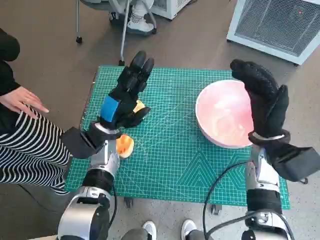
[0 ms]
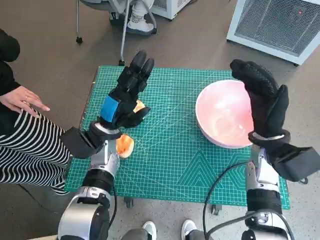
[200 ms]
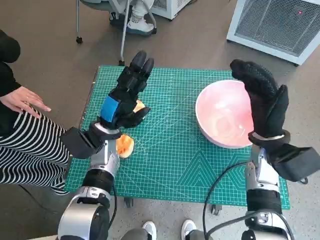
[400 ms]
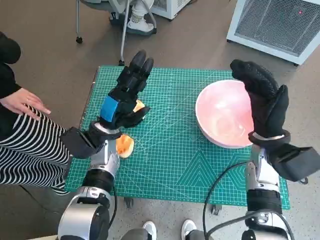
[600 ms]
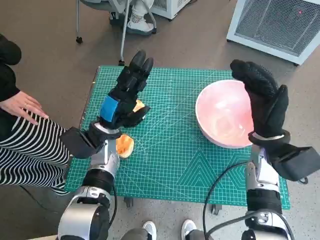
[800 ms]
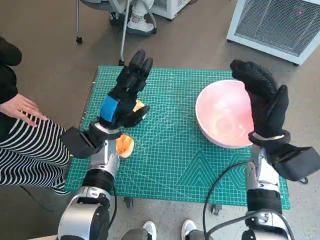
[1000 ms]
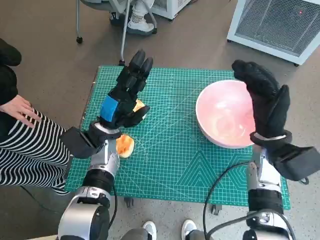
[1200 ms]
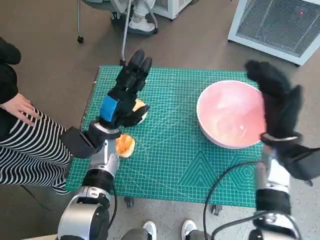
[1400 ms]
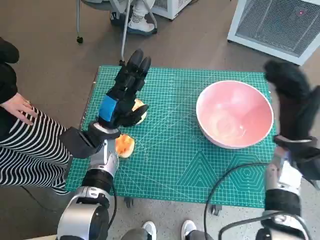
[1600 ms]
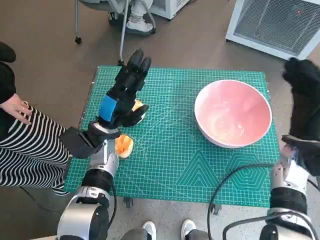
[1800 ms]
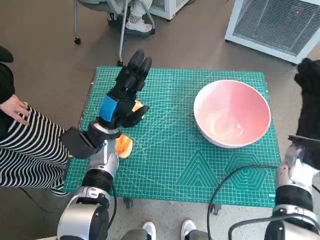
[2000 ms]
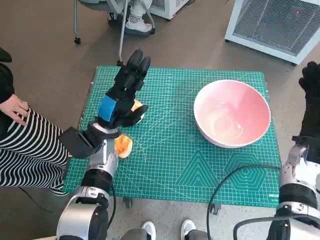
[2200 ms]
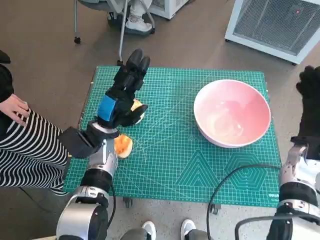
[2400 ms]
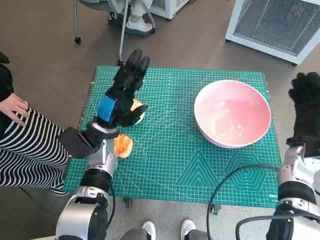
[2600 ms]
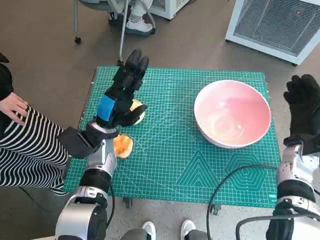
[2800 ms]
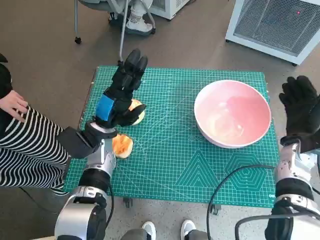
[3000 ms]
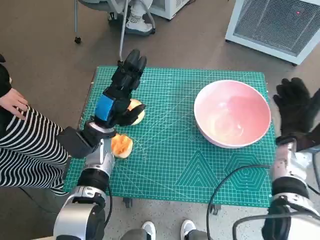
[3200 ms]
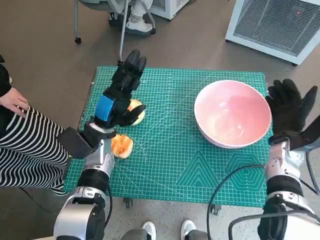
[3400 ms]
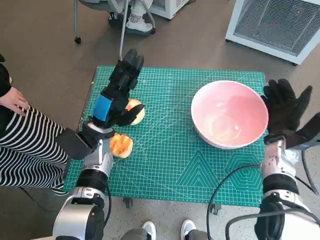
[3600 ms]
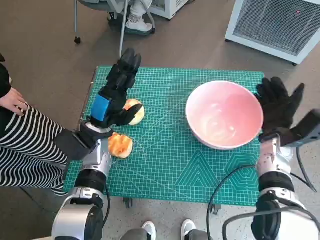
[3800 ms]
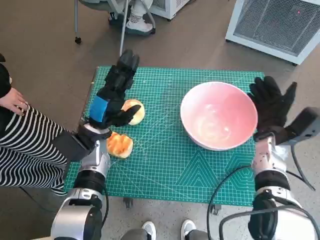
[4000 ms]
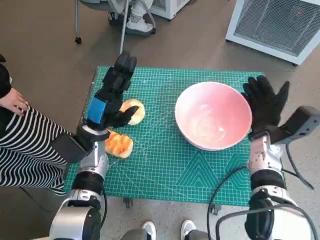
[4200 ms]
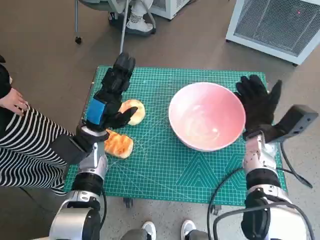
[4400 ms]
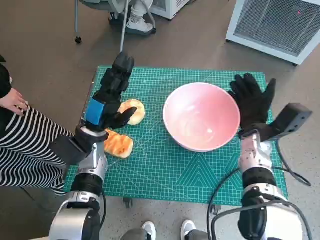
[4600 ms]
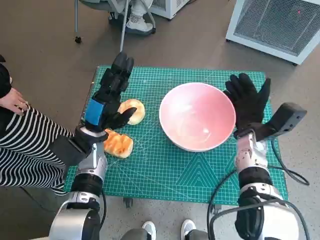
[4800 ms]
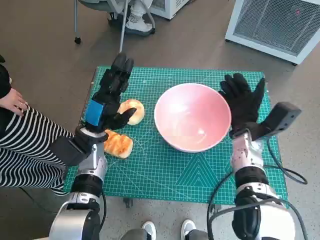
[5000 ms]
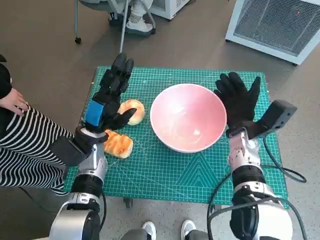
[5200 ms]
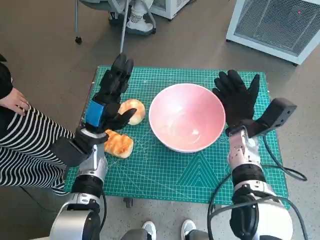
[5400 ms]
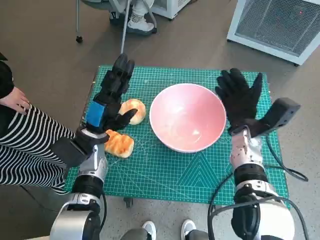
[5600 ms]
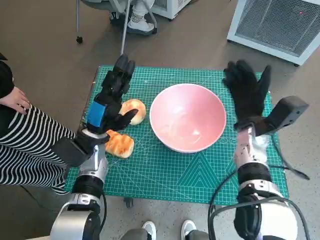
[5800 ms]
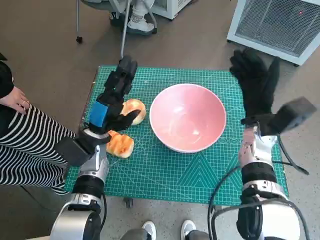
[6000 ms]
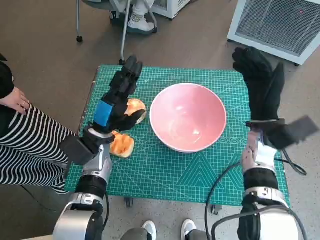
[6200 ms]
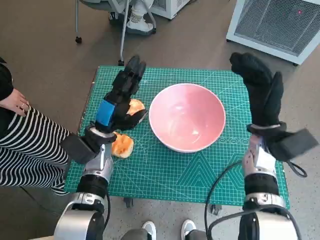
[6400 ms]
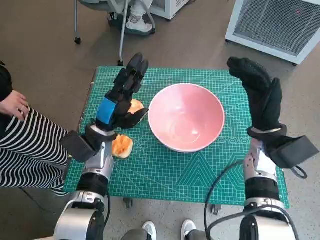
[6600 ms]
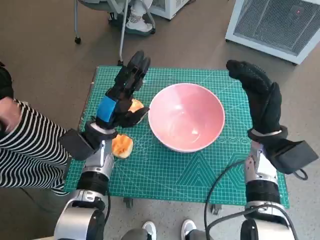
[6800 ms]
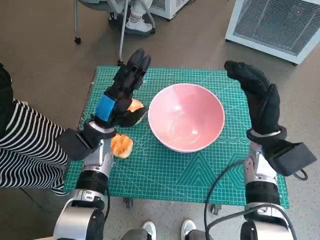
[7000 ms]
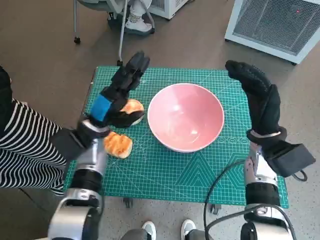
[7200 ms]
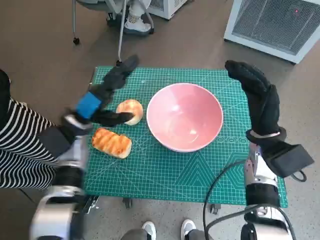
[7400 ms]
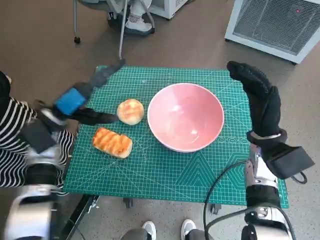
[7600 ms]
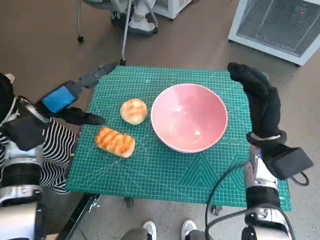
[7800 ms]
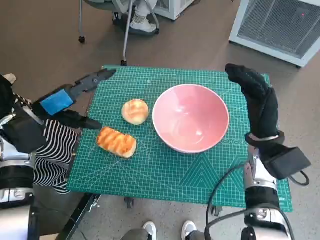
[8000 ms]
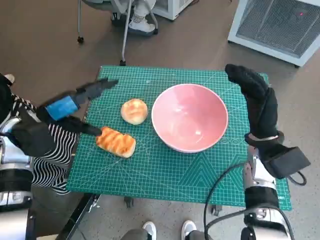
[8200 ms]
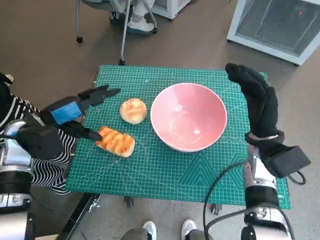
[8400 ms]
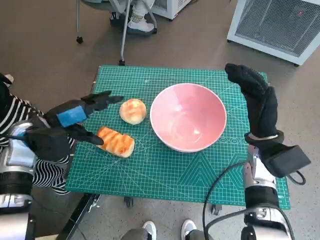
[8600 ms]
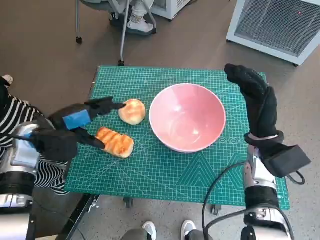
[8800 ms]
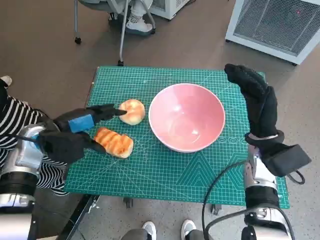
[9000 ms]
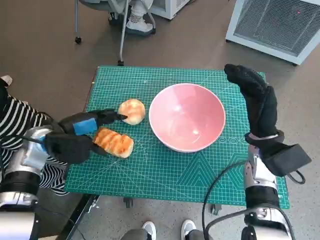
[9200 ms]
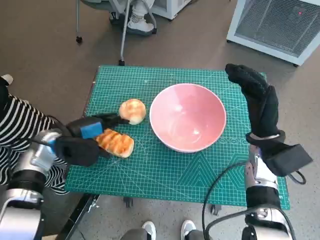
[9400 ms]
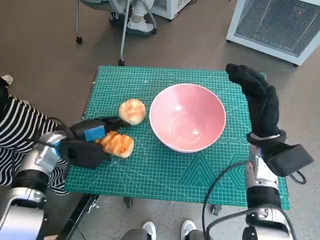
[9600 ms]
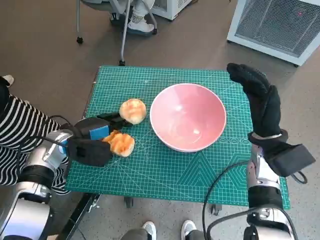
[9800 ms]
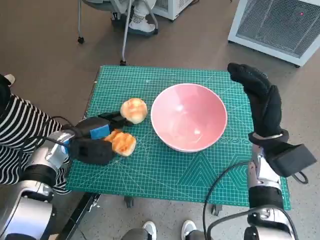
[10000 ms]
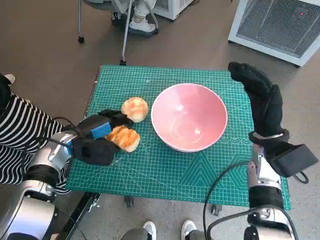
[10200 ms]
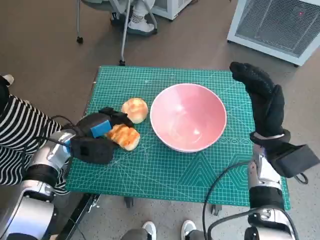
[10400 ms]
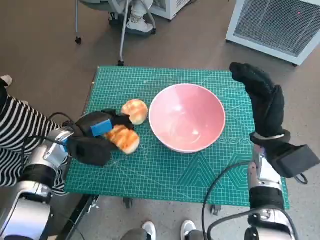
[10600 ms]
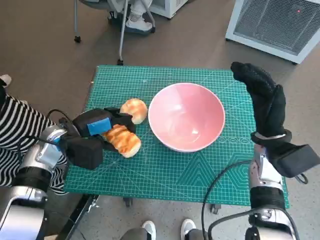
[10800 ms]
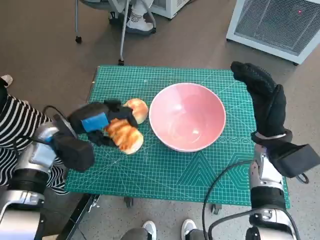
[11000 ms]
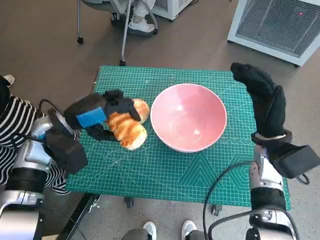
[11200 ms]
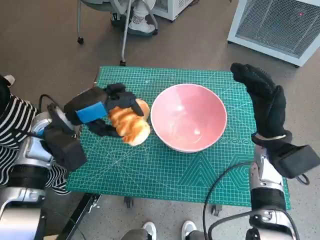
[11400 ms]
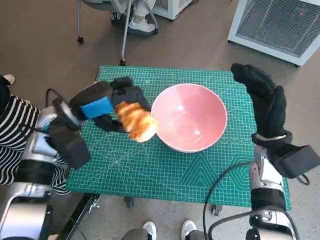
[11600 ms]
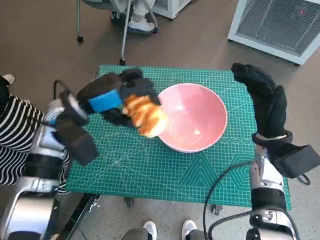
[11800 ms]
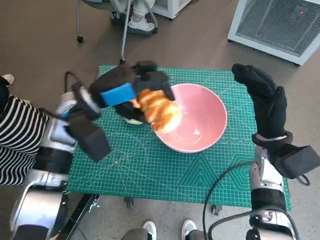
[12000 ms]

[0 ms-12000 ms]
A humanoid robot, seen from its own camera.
Task of the whole recording: Push the bowl into the center of the table and put the bread into the bowl.
Step, 0 ms to 5600 ms: Move the pink bowl to the center of table with right hand.
Step, 5800 ms to 9800 ms: Grasp the long bread with left hand.
3000 ms to 4400 ms: The right hand shifts about 5 cm to the left.
6000 ms to 7600 ms: The left hand moves to the left and upward, about 10 cm.
9000 ms to 10400 ms: The left hand is displaced downward by approximately 5 cm.
10400 ms to 12000 ms: The left hand is displaced upward and to the right by approximately 15 cm.

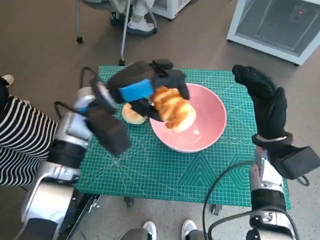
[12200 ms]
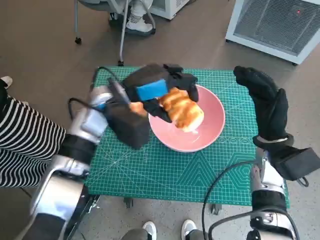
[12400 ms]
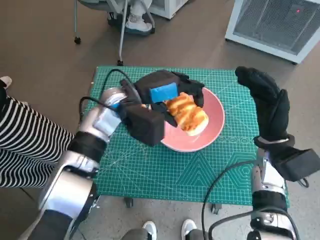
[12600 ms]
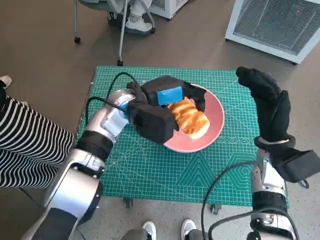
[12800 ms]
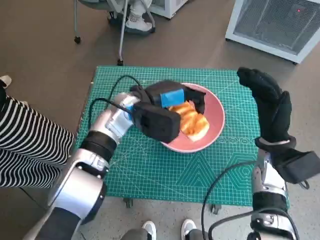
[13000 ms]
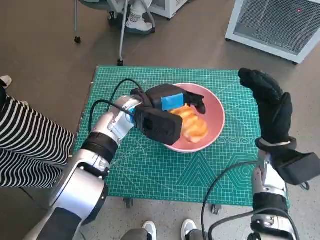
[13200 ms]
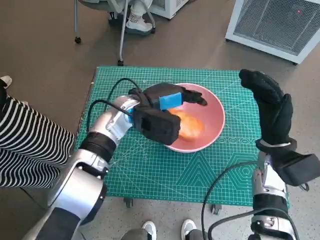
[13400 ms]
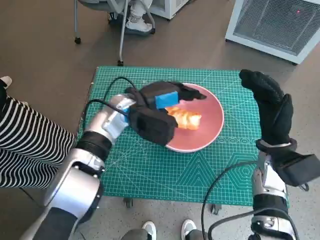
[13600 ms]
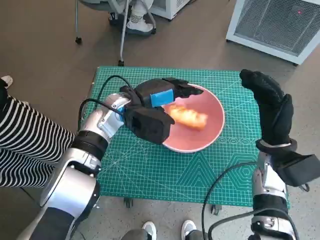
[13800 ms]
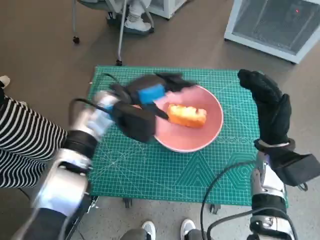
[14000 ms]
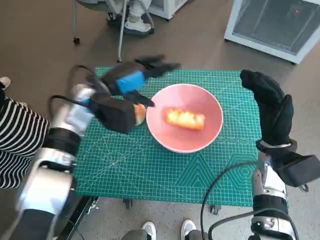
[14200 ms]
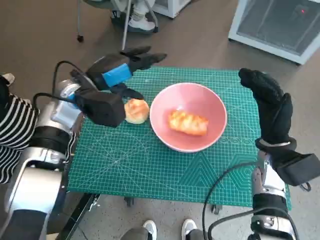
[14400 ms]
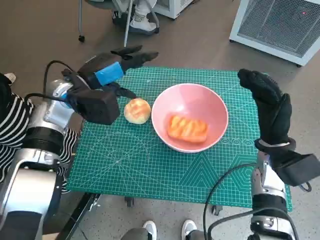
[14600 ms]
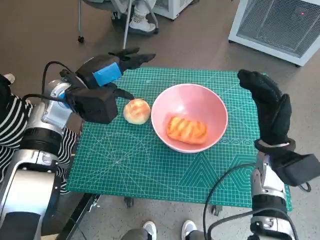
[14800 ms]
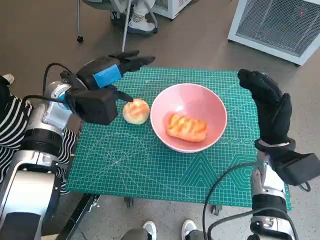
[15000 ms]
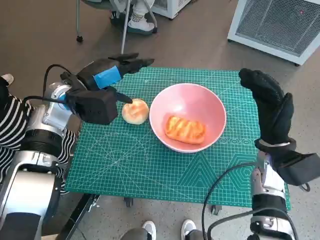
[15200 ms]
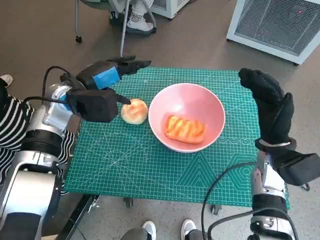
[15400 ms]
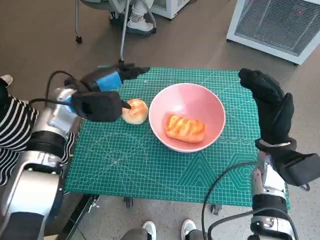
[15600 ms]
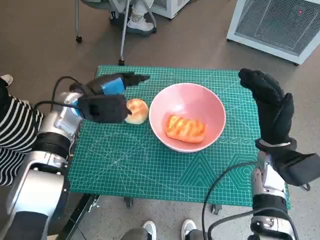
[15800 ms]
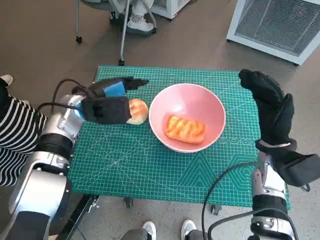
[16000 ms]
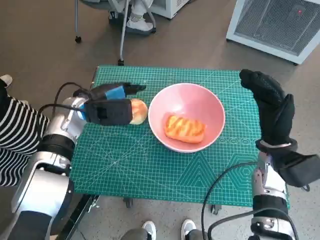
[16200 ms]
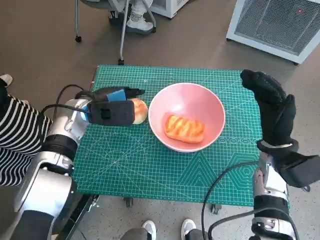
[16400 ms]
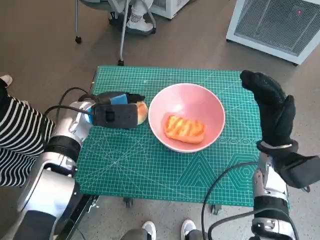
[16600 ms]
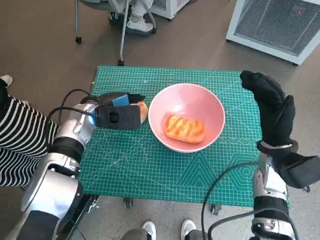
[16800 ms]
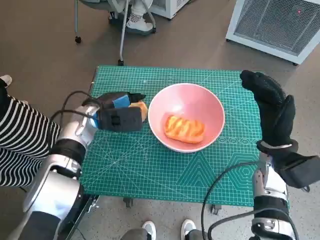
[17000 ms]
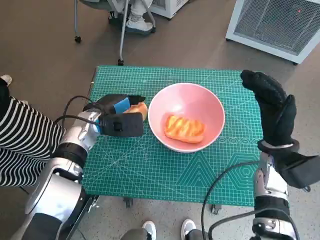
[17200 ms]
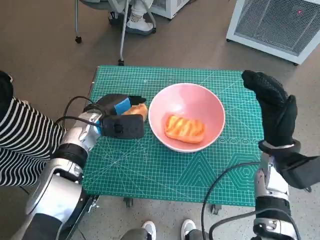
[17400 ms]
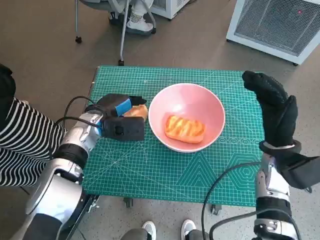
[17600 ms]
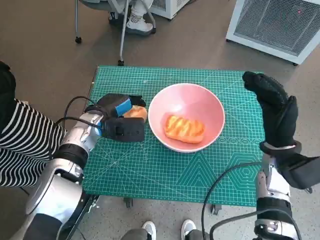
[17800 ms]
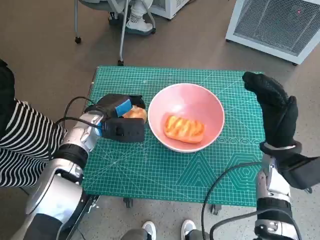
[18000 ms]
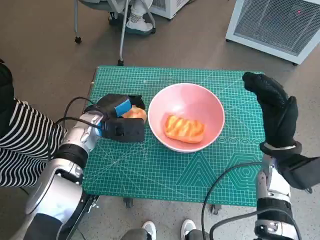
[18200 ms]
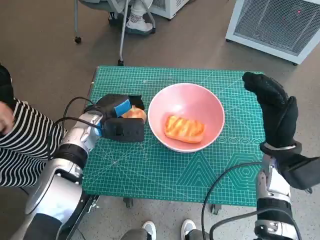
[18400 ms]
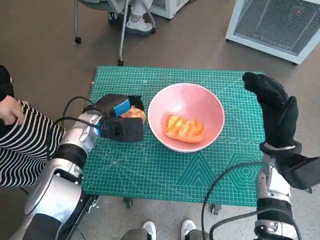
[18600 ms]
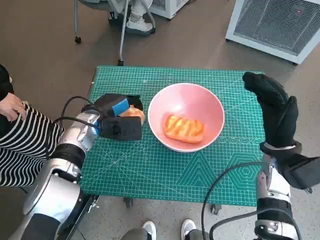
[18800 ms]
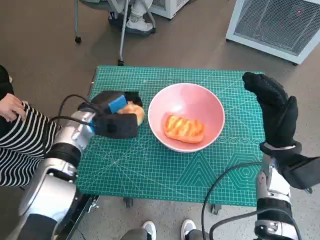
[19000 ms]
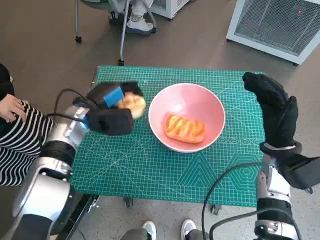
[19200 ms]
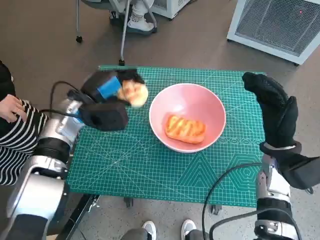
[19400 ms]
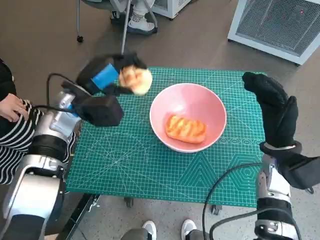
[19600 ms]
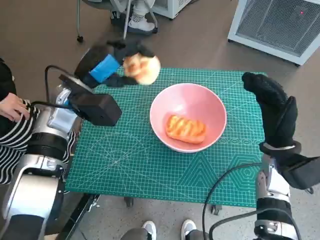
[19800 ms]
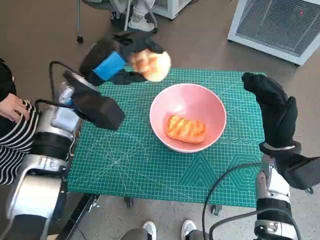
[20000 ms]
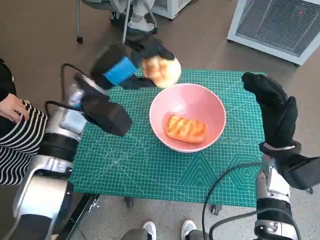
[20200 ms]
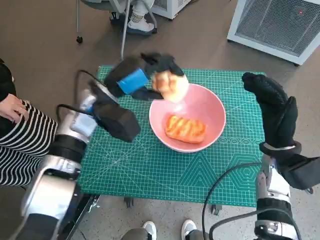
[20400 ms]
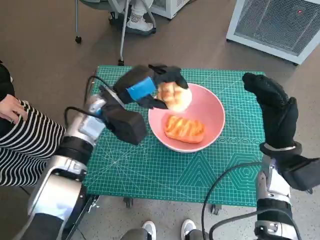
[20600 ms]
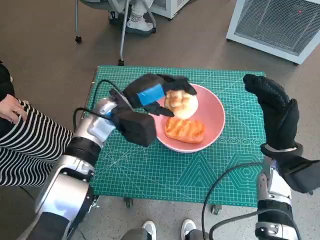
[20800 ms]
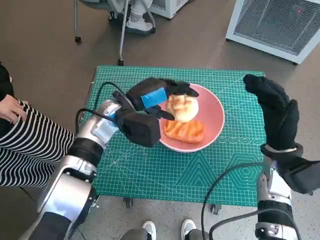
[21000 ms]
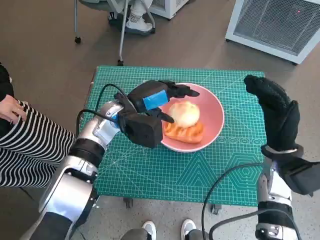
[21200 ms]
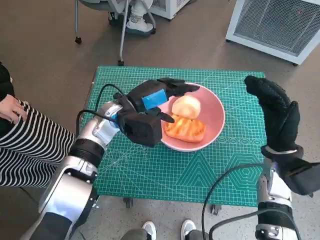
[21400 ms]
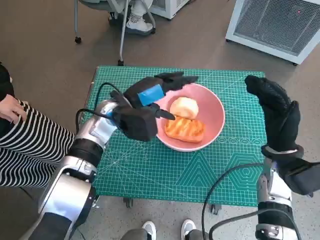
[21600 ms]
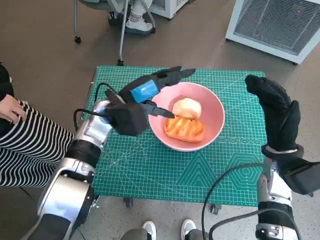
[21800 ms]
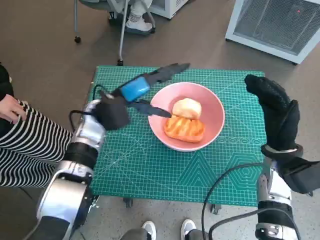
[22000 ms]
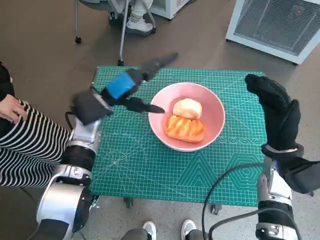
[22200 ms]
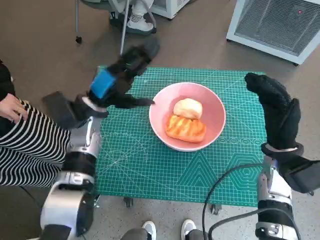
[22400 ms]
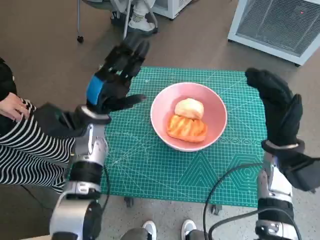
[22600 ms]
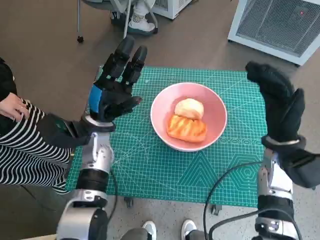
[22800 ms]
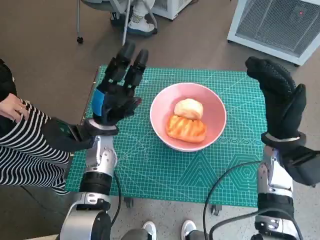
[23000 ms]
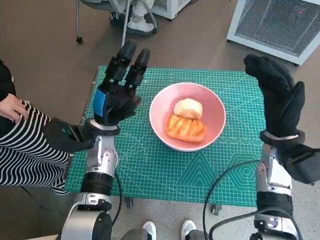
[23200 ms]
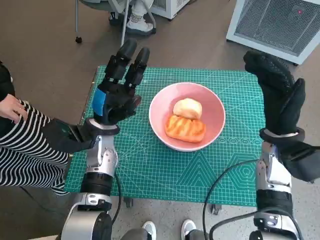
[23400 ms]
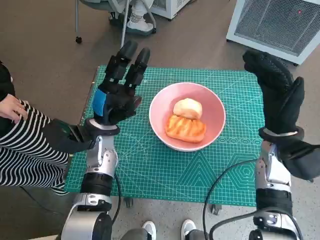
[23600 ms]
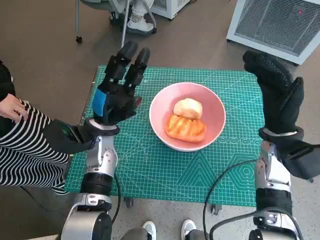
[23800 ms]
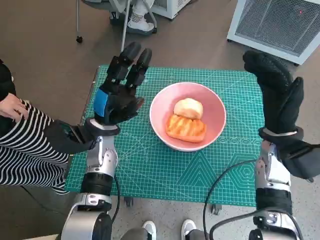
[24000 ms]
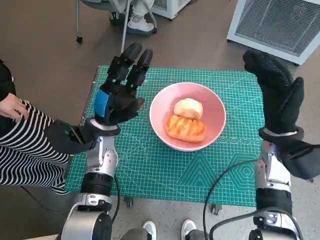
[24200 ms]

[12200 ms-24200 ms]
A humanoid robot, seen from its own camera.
Task of the whole recording: Push the bowl into the center of the table and put the bread into the bowl.
Step, 14200 ms to 17400 ms: Grasp the round bread with left hand.
Step, 17600 ms to 21600 ms: Place the round bread in pink bowl with left hand.
12200 ms to 13800 ms: The left hand moves about 5 cm.
13800 ms to 15200 ms: The left hand travels to the left by approximately 10 cm.
15200 ms to 16600 ms: The left hand travels downward by approximately 5 cm.
16600 ms to 18200 ms: The hands move only a little.
18200 ms to 19800 ms: The left hand goes about 10 cm upward.
19800 ms to 21200 ms: The left hand is displaced to the right and downward by about 10 cm.
21200 ms to 22600 ms: The left hand moves to the left, roughly 5 cm.
